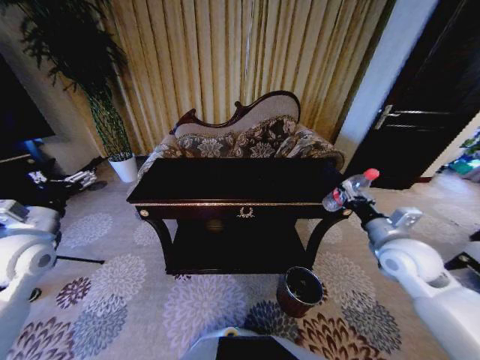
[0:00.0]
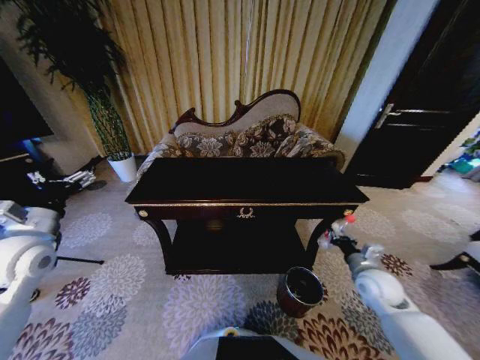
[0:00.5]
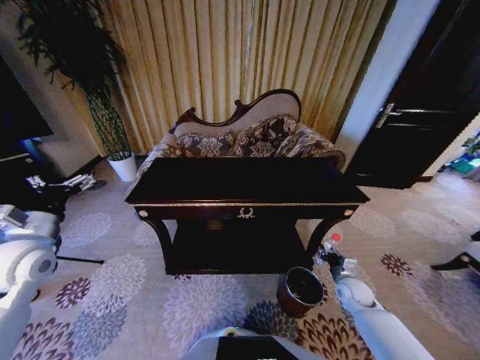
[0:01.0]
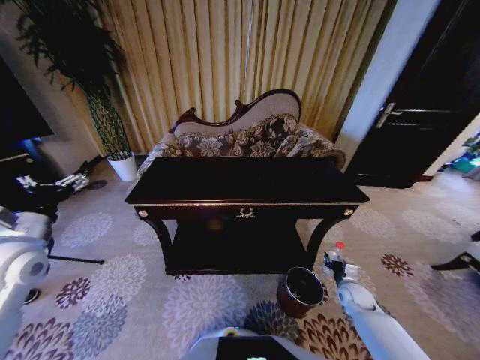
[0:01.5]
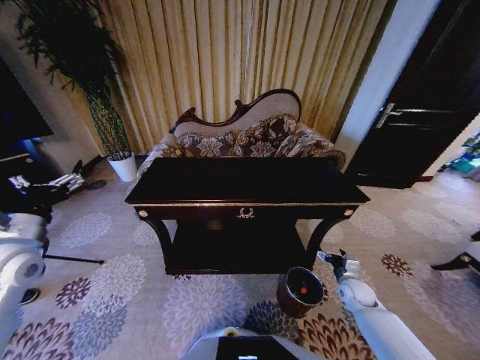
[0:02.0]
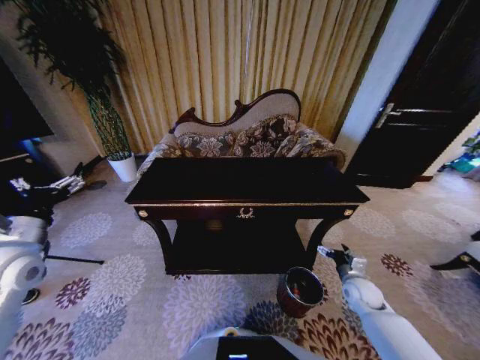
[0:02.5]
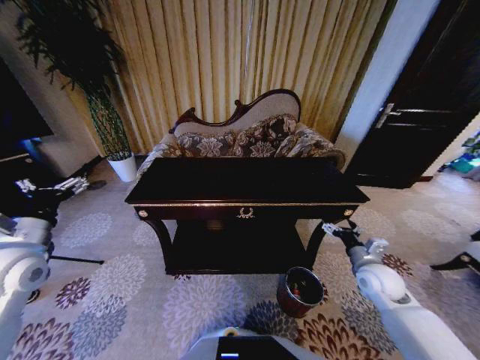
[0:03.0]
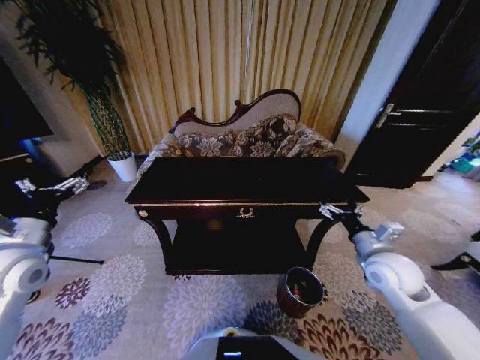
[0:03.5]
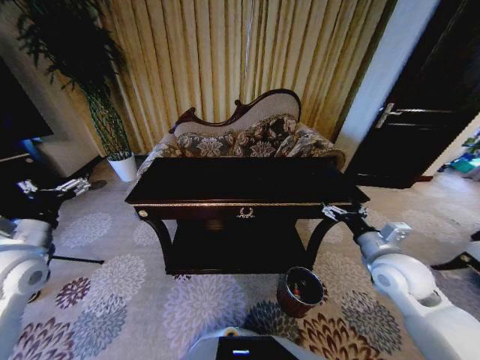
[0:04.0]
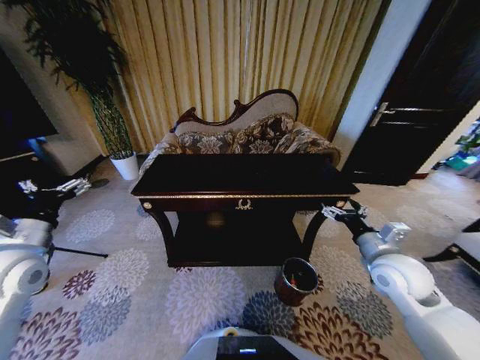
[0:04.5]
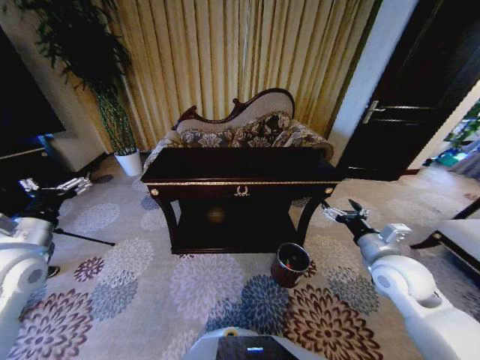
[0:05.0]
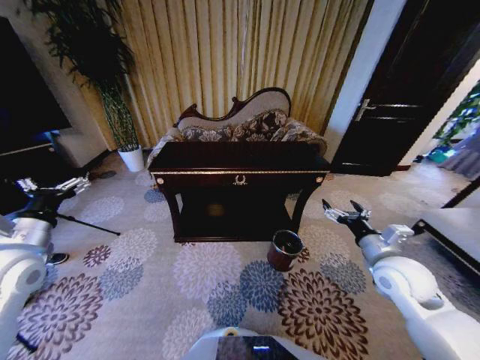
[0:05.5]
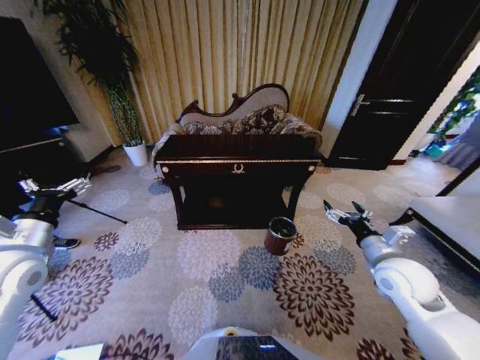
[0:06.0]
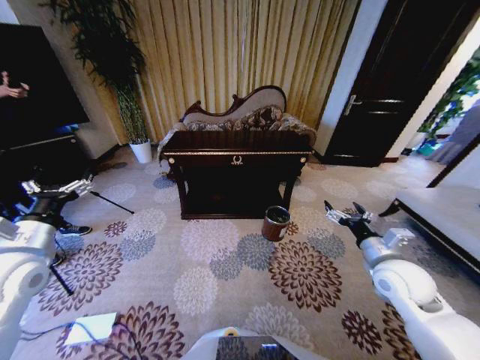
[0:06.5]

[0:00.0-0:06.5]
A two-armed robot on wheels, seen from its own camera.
Task of the whole recording: Move to the front of the table and place the trash on the table into the trash bin.
0:00.0 to 0:02.0: The right gripper is displaced downward by roughly 25 cm, and opens up.
0:02.0 to 0:04.5: The right gripper travels upward by approximately 25 cm.
